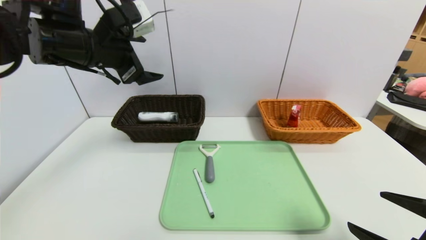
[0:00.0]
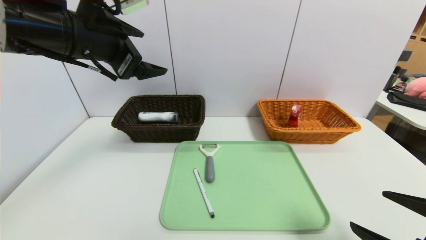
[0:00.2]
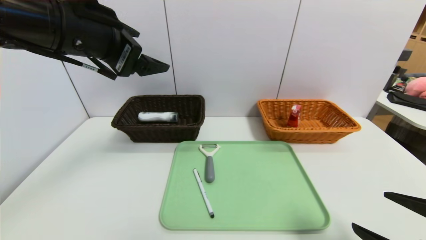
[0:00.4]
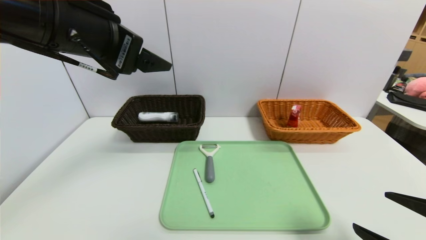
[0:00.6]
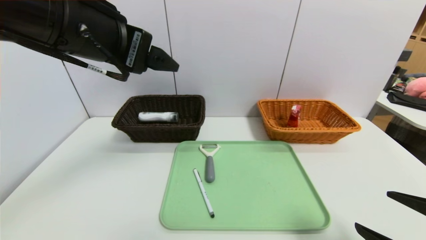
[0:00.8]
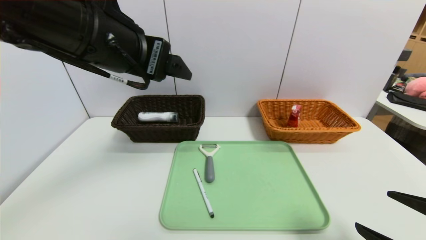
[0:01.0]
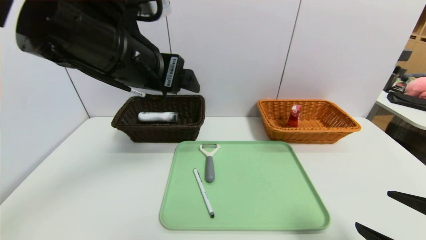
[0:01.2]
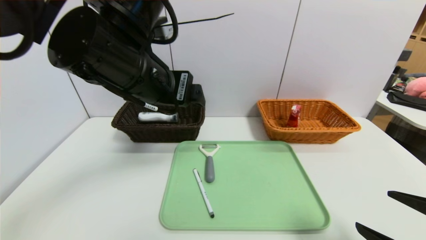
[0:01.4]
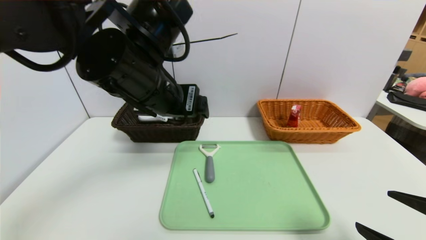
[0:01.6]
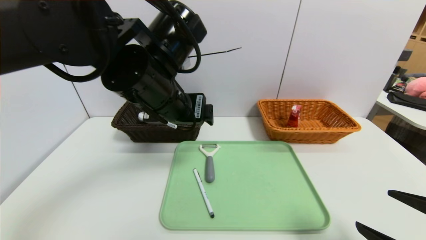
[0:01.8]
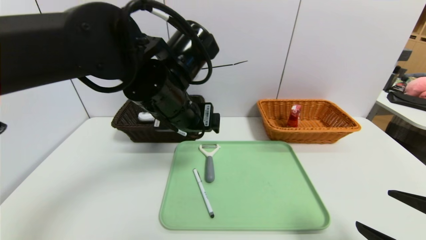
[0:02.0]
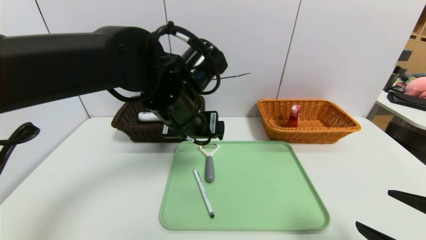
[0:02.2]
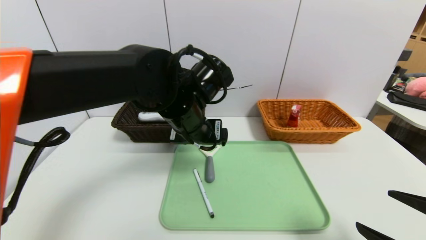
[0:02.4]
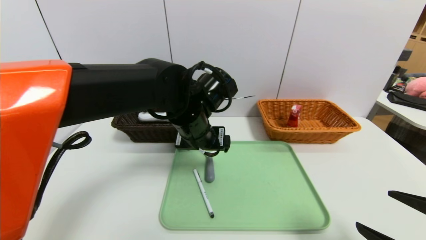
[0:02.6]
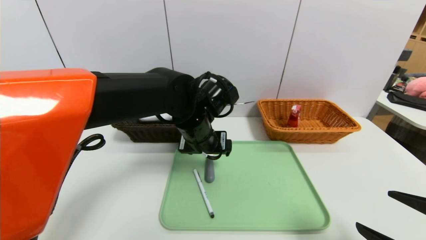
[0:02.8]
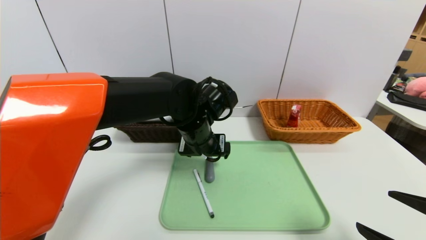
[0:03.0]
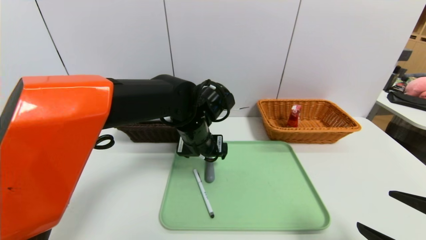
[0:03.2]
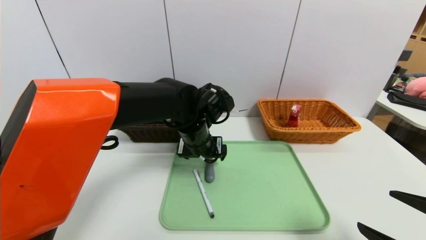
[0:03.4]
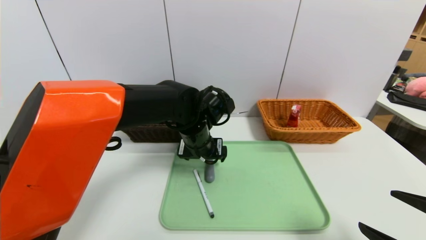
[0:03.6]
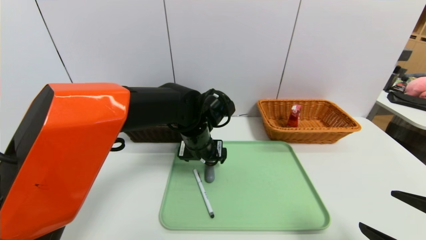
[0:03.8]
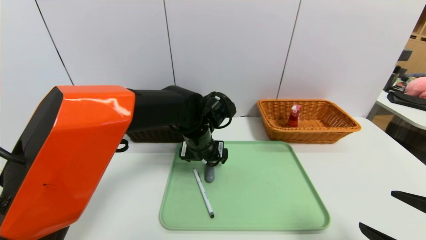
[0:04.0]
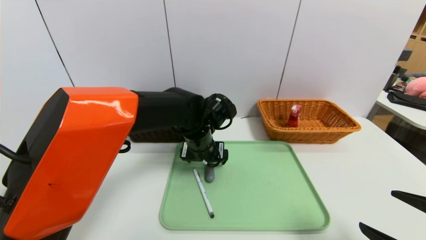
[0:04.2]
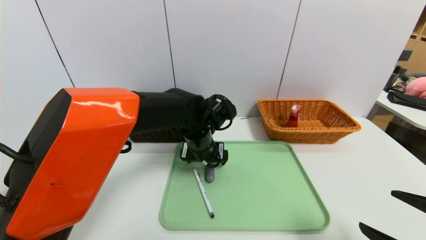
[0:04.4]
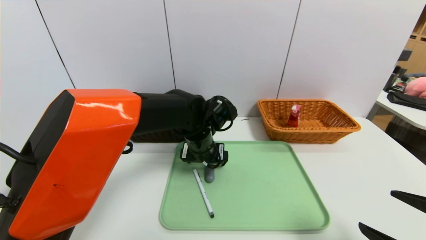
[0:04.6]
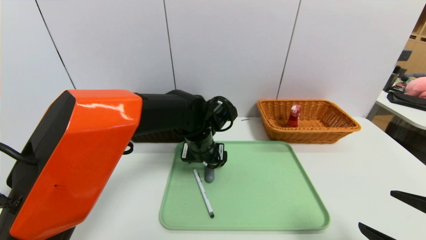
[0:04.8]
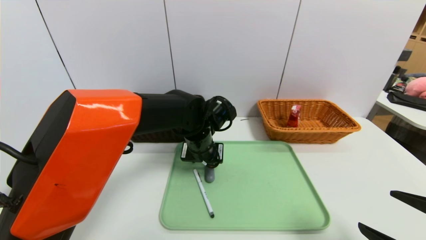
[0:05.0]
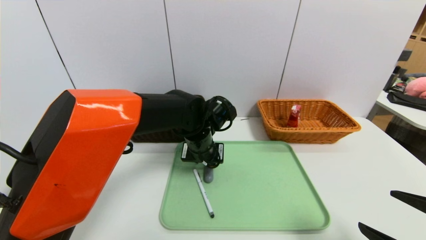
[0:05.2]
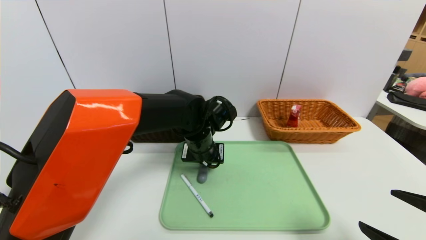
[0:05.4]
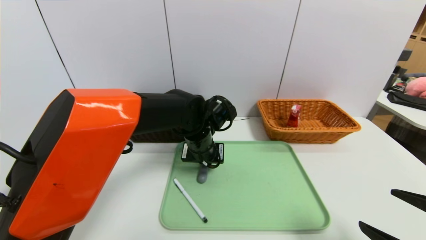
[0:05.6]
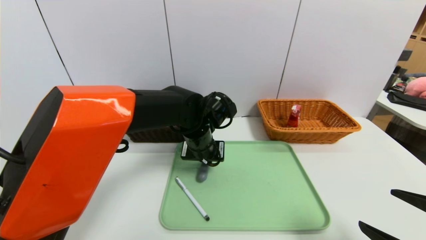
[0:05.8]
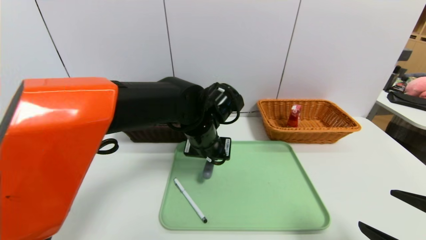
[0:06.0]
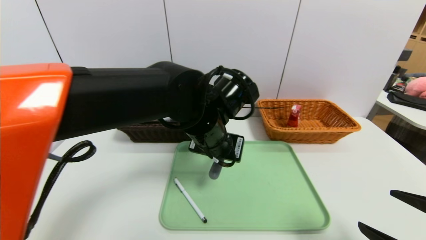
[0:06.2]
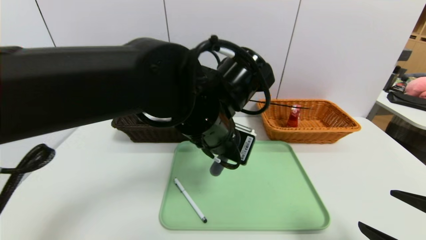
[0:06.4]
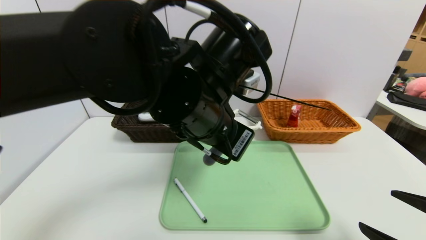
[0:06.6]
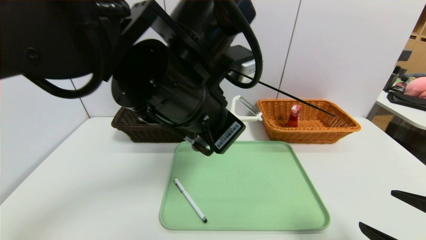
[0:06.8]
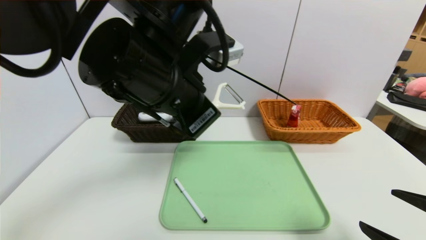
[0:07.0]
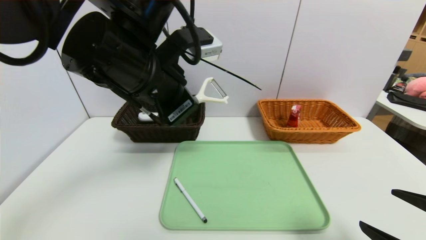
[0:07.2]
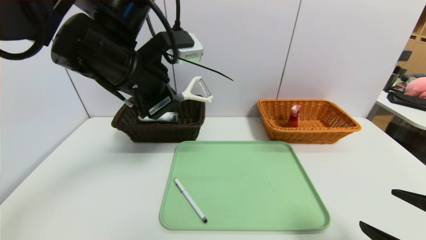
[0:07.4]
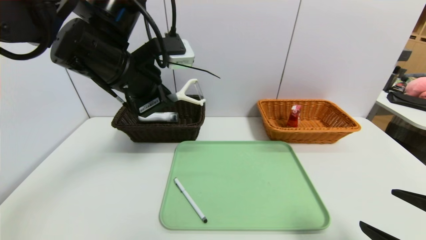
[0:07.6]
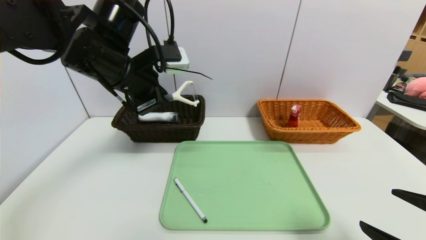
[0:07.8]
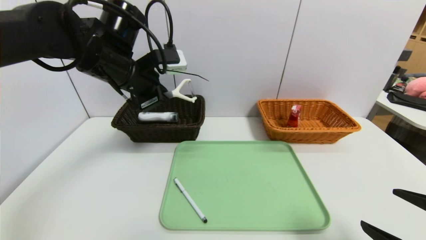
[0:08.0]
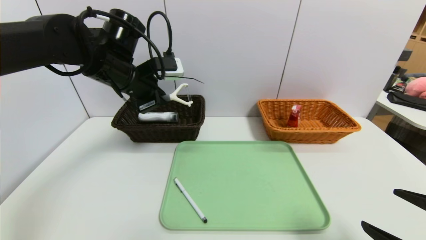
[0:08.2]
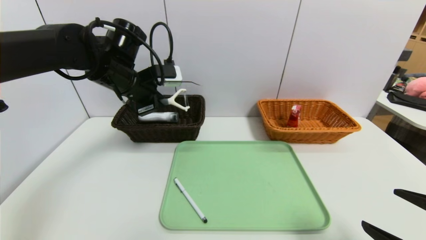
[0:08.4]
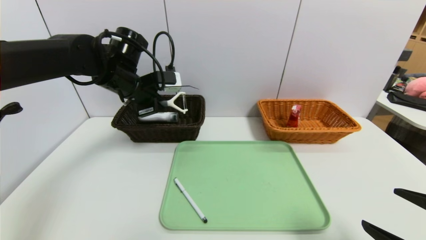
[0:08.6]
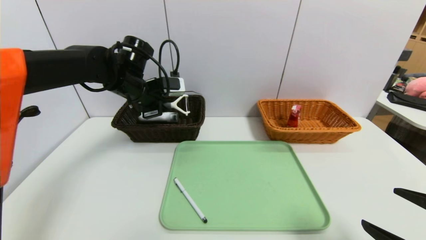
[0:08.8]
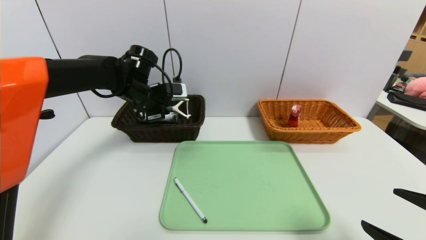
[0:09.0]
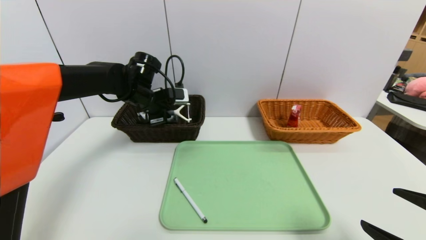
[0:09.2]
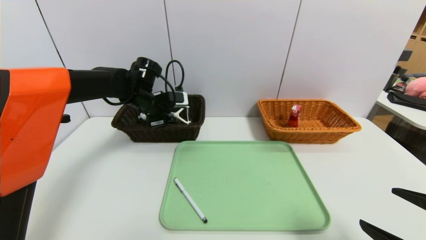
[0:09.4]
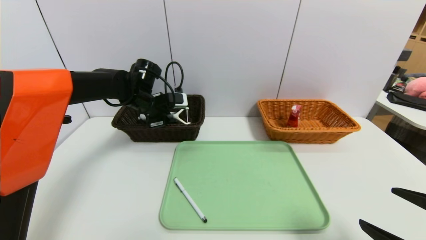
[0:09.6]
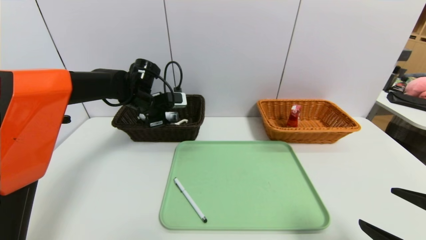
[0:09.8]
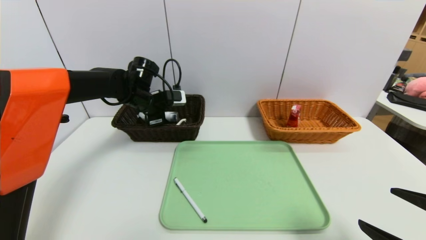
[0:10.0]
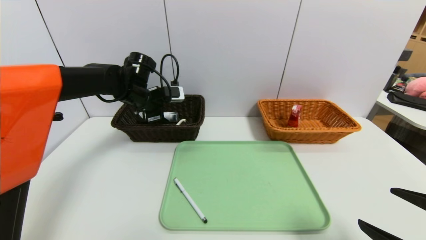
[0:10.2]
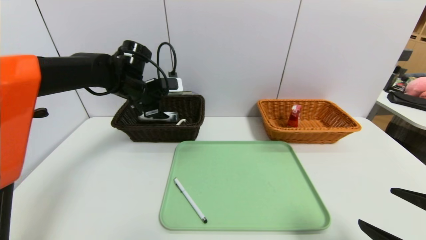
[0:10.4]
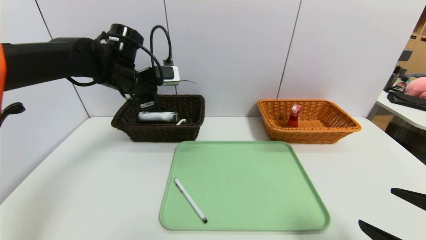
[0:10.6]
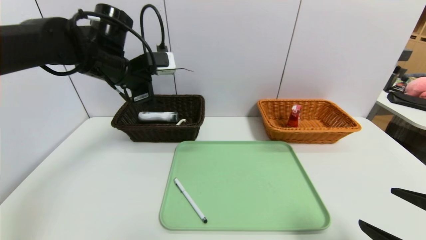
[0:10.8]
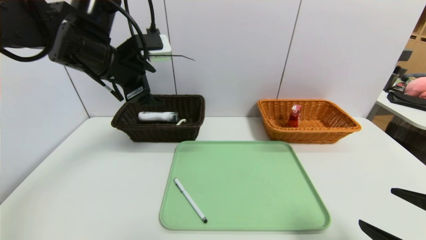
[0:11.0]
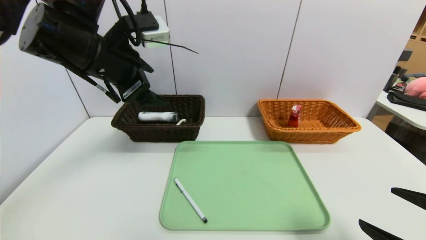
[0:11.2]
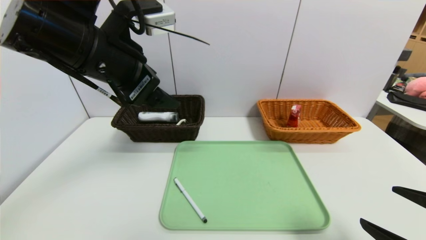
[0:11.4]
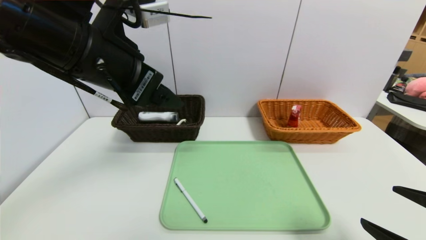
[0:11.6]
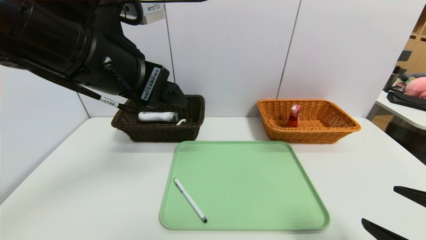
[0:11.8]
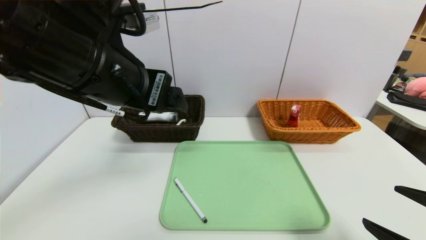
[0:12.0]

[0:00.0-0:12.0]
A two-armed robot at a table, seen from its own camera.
Task of the whole recording: place the food in the right basket with the right gripper, and place the non food items in the left basket with the left gripper.
Step, 0:00.0 to 0:10.6: Grasp the peeler and put it in the left basket.
0:00.0 to 0:01.6: The left gripper heads to the right and backward, covering approximately 15 cm.
0:01.6 to 0:03.0: The left gripper is displaced downward, forward and to the right by roughly 15 cm.
0:03.0 to 0:04.4: The grippers make only small movements.
0:04.4 to 0:06.0: The left gripper moves about 5 cm, and closes.
0:06.0 to 0:07.6: The left gripper travels to the left and upward by approximately 20 cm.
0:07.6 to 0:09.0: The left gripper is displaced forward and downward by about 15 cm.
0:09.0 to 0:10.4: The left gripper opens its fingers.
0:10.4 to 0:12.0: The left gripper goes about 25 cm backward and upward.

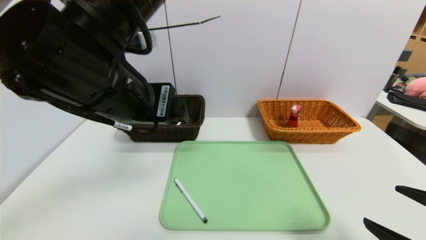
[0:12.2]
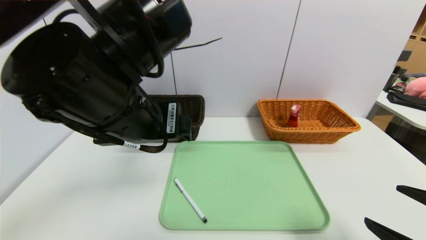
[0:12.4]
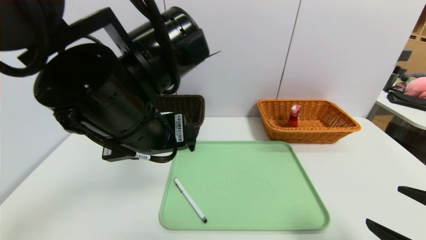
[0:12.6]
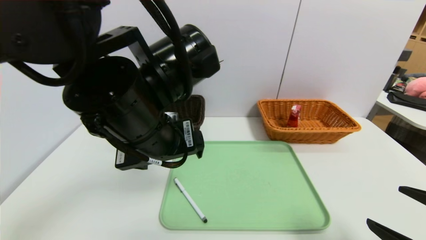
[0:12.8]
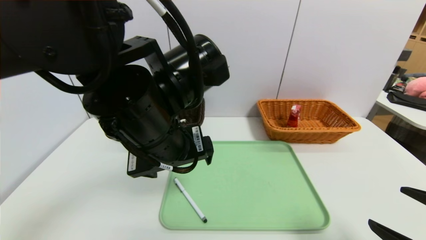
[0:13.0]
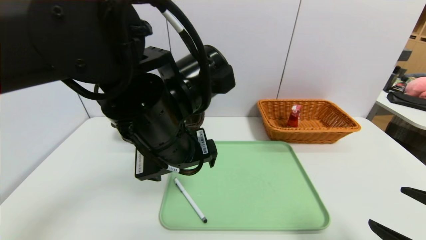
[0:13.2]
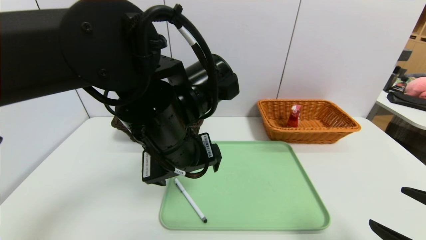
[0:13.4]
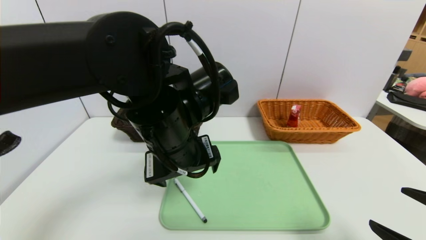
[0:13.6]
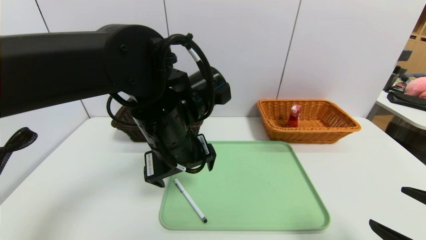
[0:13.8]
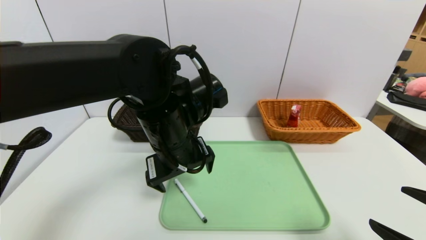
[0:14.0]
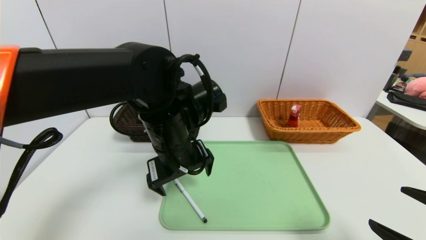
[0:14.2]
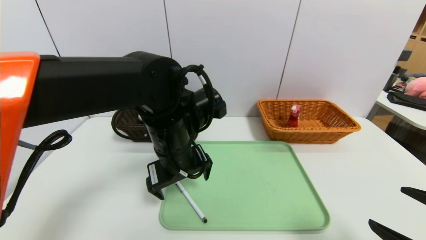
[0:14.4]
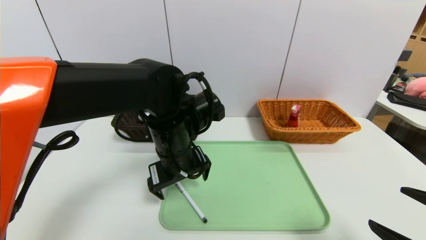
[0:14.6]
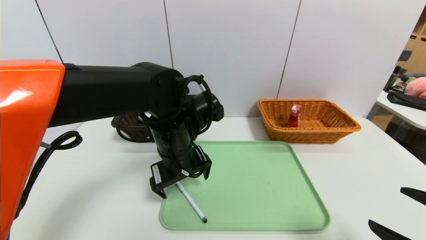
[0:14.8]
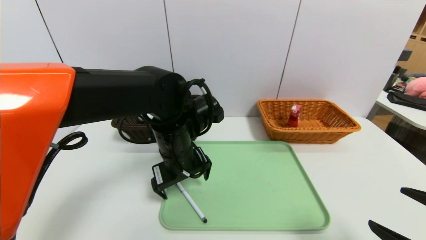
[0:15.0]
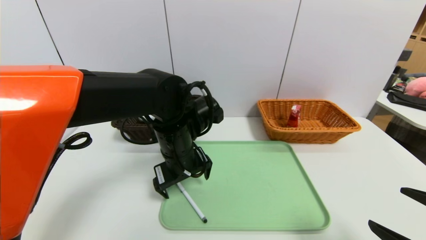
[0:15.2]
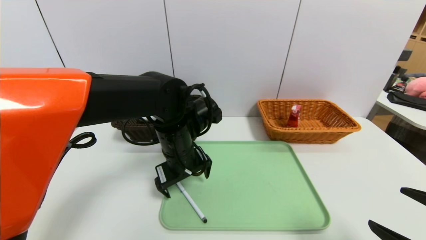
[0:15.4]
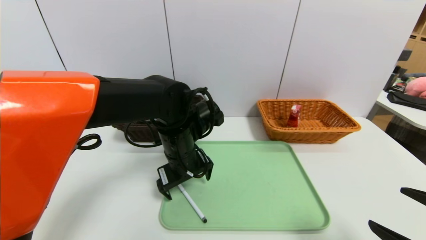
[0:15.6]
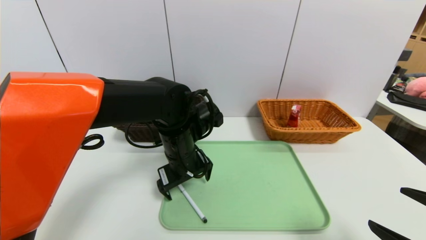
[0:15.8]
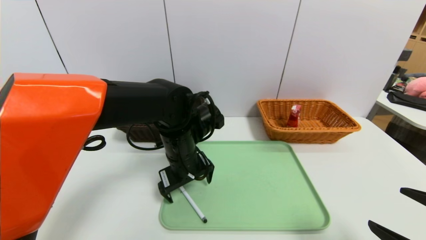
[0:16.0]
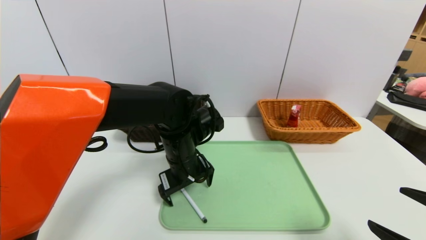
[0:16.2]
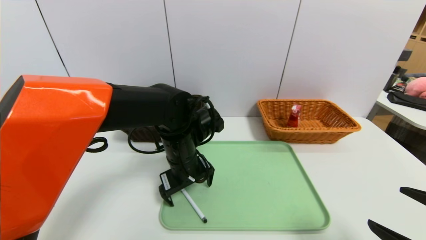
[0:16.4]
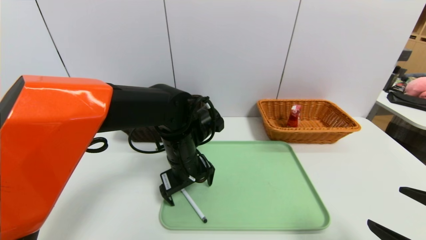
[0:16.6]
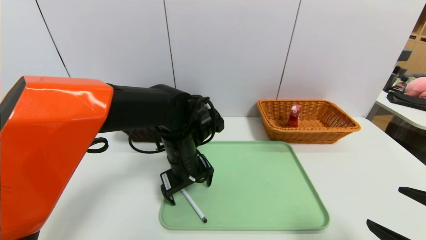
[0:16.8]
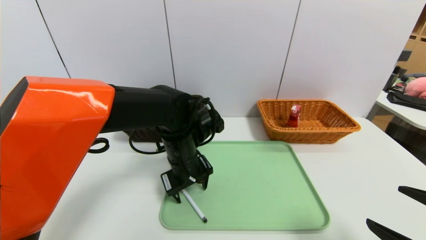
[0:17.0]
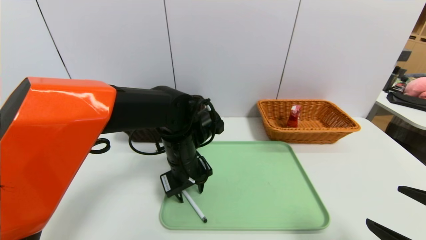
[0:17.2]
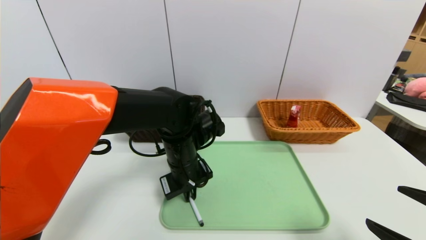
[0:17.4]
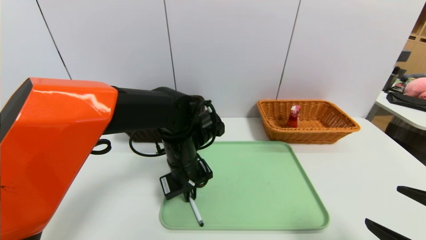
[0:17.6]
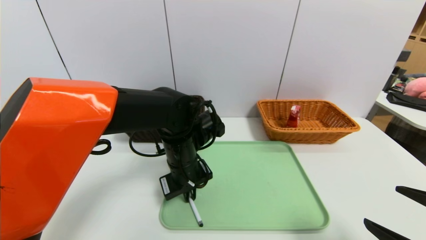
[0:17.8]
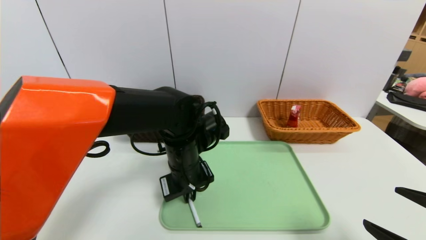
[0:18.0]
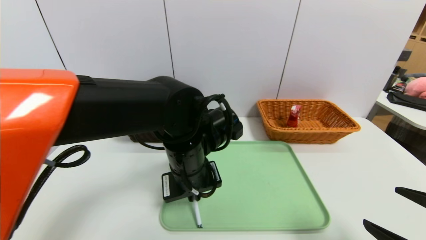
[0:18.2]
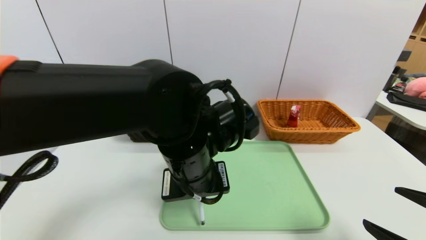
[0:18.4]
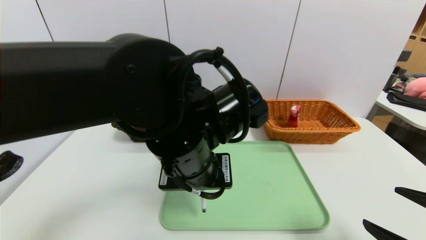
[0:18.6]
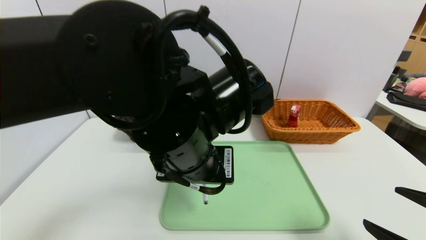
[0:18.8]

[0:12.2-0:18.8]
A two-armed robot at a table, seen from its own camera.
Task of the whole recording: place the food in the right basket with the right gripper, and place the non food items in the left basket with the left gripper.
0:12.2 to 0:13.8: The left gripper travels downward and to the right by some 10 cm.
0:13.8 to 0:15.4: The left gripper goes roughly 10 cm downward and forward.
0:15.4 to 0:17.2: The left gripper closes.
0:17.2 to 0:18.8: The left gripper is displaced upward and backward by about 15 cm, and closes.
